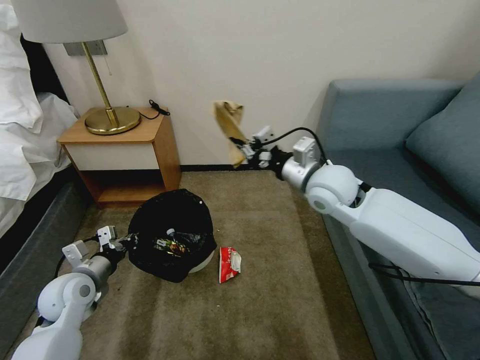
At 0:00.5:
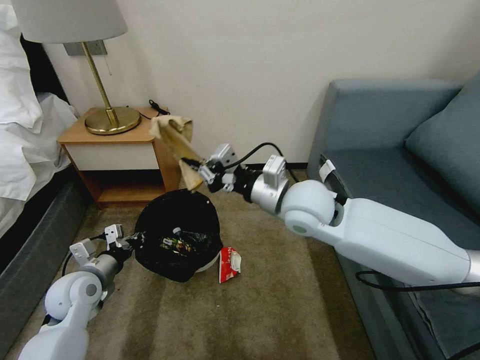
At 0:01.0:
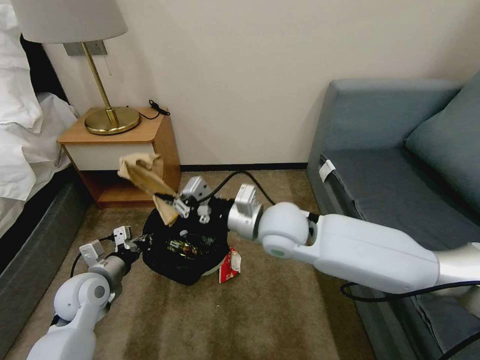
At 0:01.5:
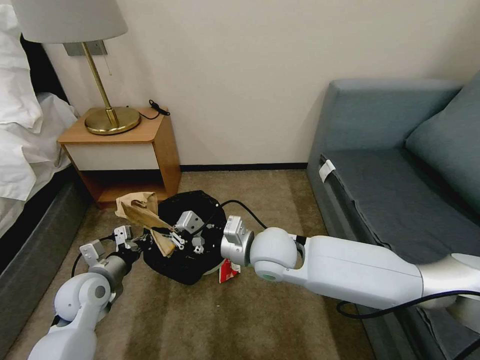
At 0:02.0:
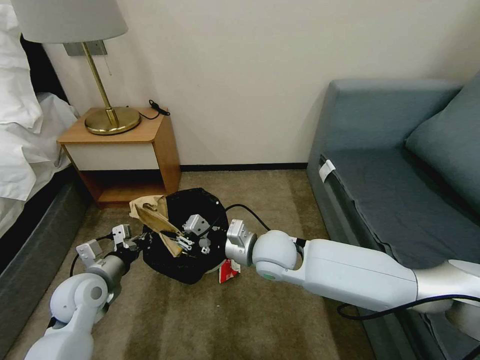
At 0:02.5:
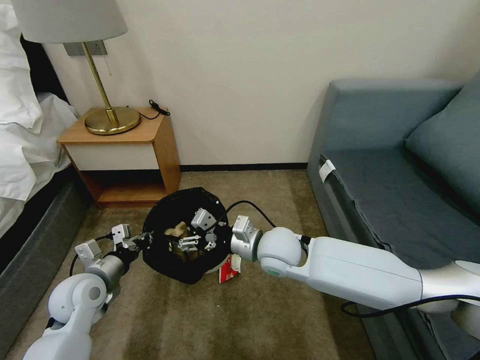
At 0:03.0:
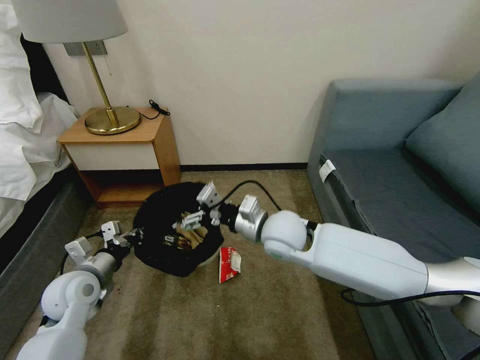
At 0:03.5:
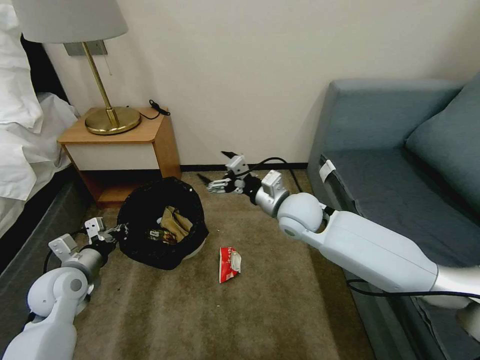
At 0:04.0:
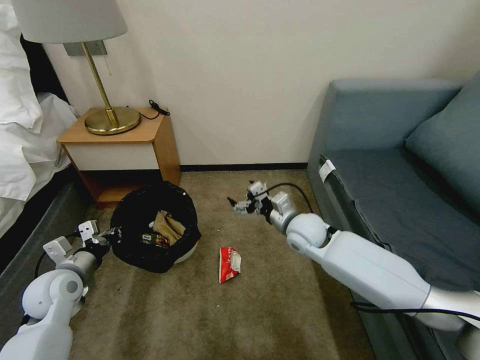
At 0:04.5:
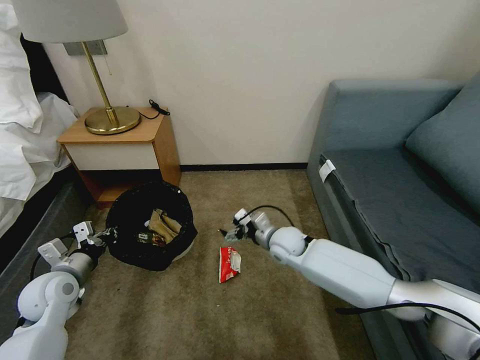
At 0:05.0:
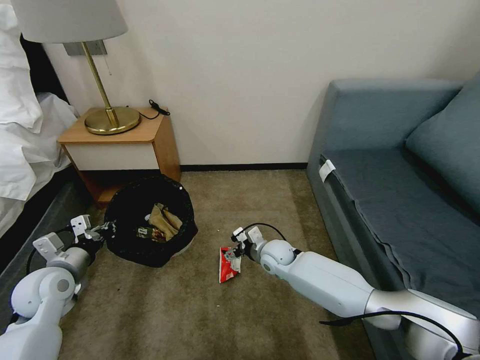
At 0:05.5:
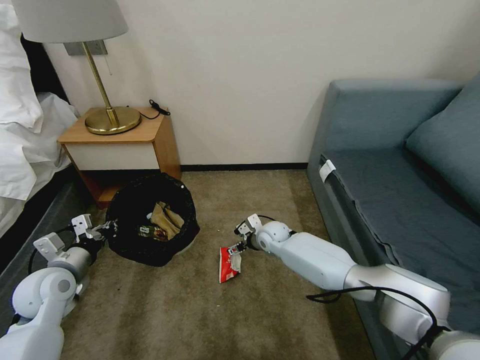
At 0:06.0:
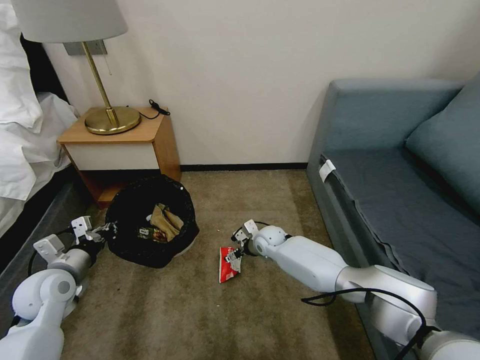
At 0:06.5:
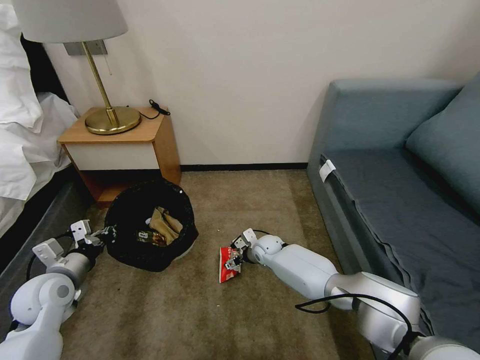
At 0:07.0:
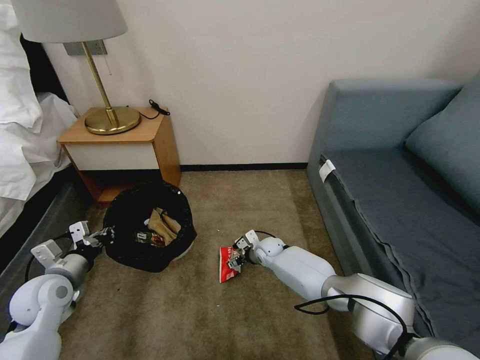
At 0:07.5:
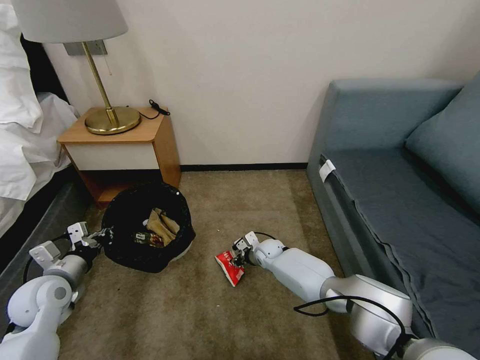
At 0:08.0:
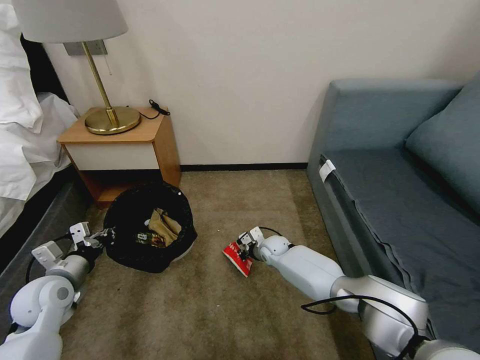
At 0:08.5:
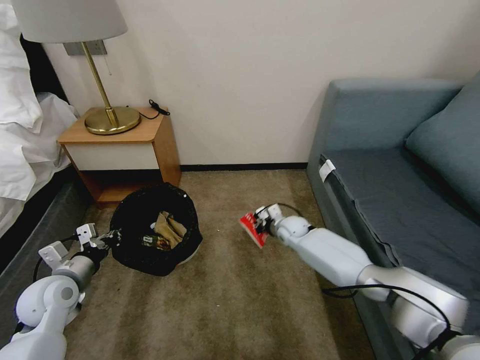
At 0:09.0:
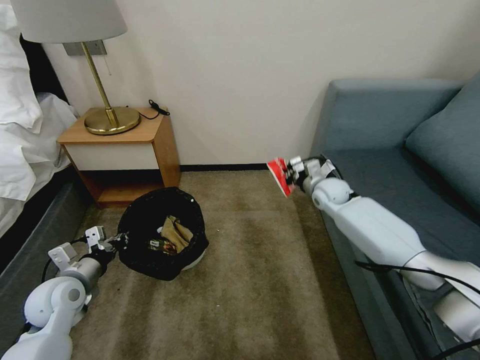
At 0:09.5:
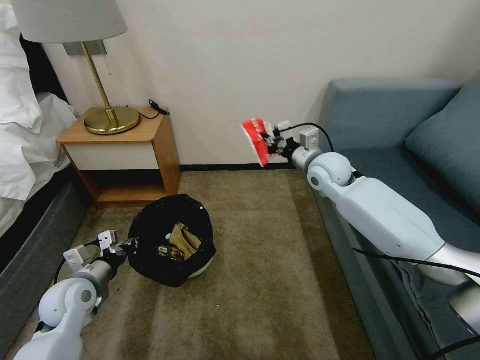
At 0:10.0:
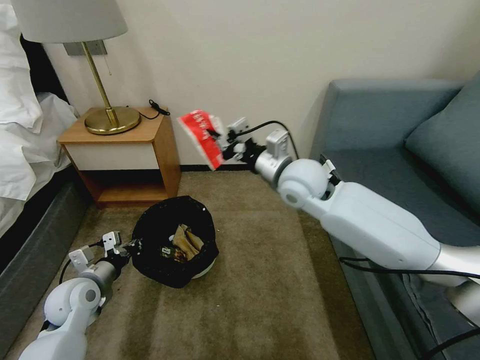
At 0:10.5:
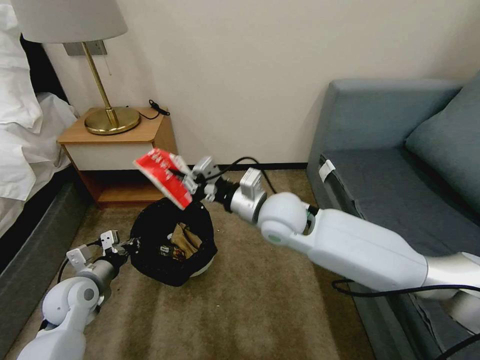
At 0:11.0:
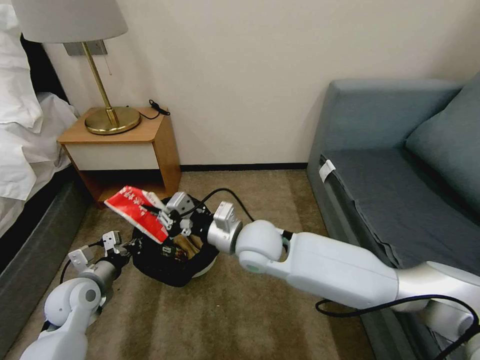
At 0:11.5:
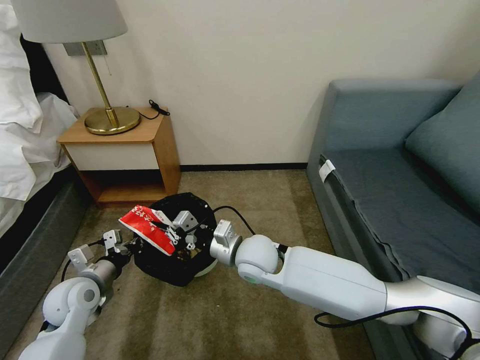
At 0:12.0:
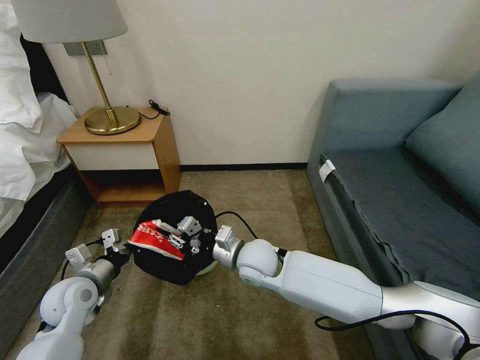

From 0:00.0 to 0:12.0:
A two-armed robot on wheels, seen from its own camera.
Task of the whole recording: Pick up the trash bin, then pick up the garbage on the floor and place it into the trash bin.
From 0:00.0 to 0:02.0: The right gripper travels to the left, downward and backward by some 20 cm.
From 0:02.0 to 0:04.0: The right gripper moves to the right and forward, about 10 cm, and opens its fingers. The left gripper travels to the left by some 5 cm.
From 0:04.0 to 0:06.0: The right gripper is displaced downward, forward and to the left by roughly 15 cm.
From 0:06.0 to 0:08.0: The right gripper closes up.
From 0:08.0 to 0:10.0: The left gripper ends up some 5 cm from where it was, while the right gripper heads upward, covering approximately 35 cm.
From 0:10.0 to 0:12.0: The right gripper is displaced downward, to the left and backward by some 20 cm.

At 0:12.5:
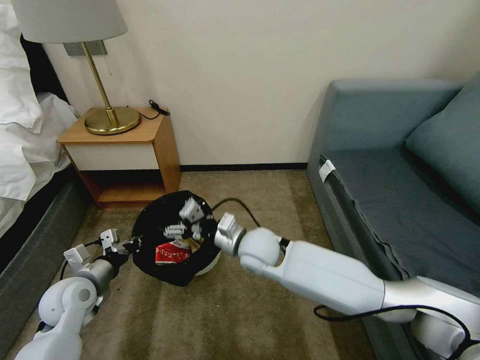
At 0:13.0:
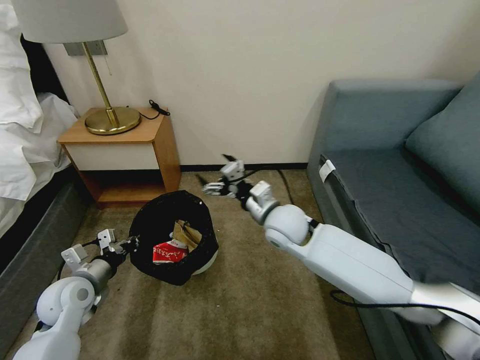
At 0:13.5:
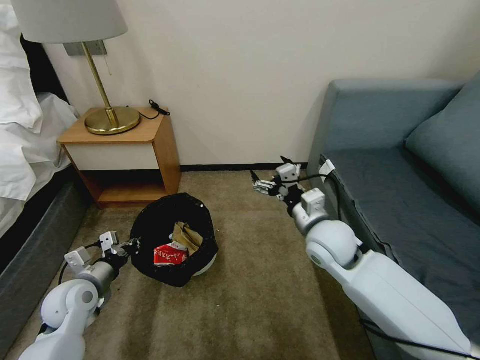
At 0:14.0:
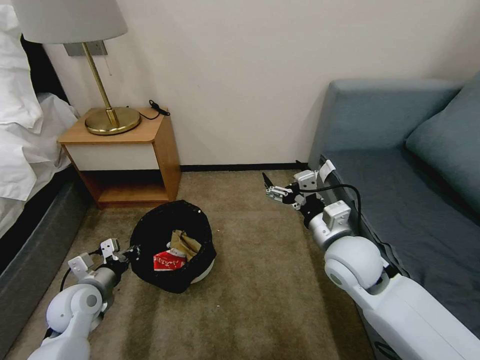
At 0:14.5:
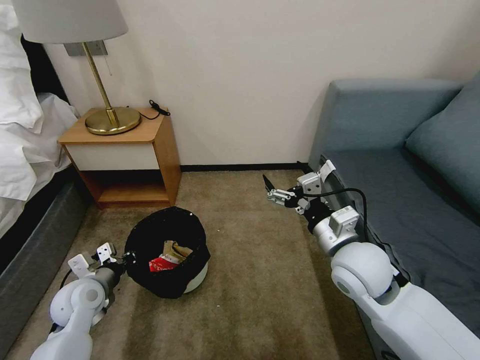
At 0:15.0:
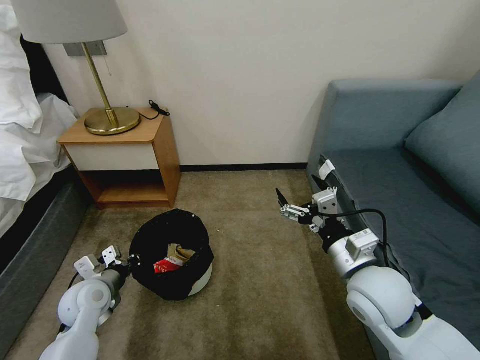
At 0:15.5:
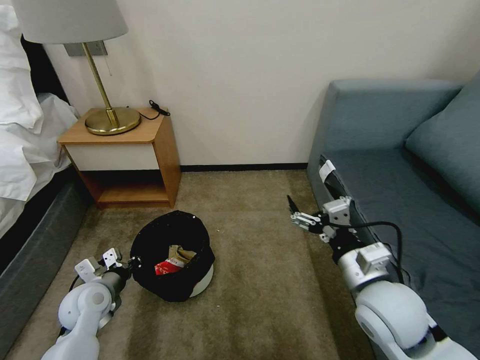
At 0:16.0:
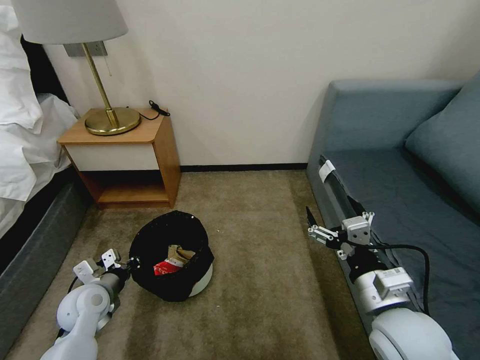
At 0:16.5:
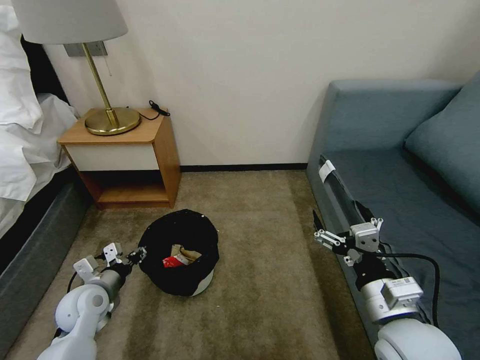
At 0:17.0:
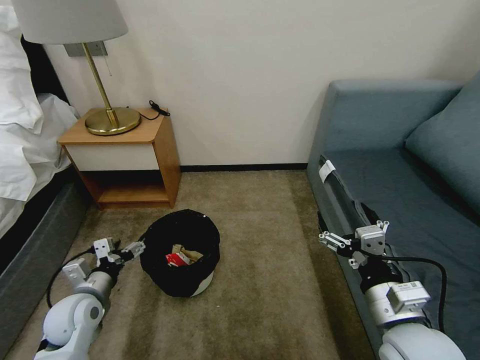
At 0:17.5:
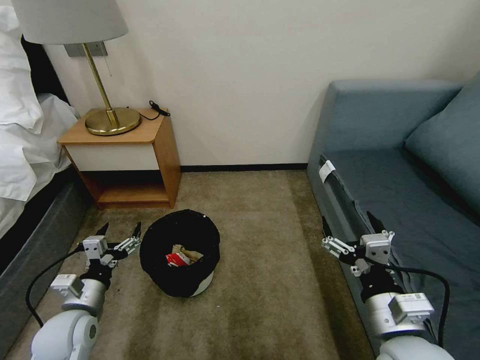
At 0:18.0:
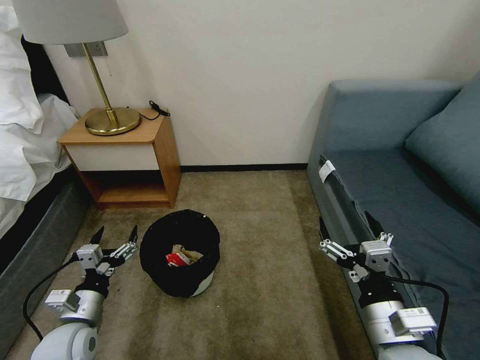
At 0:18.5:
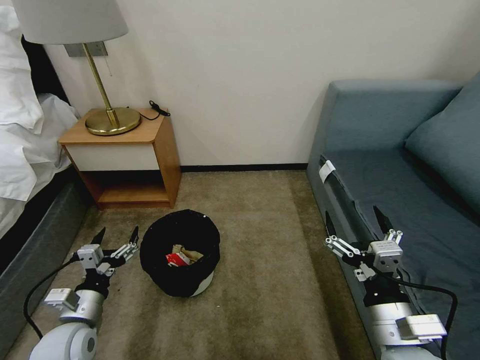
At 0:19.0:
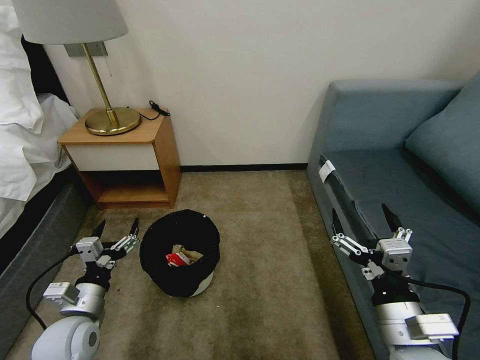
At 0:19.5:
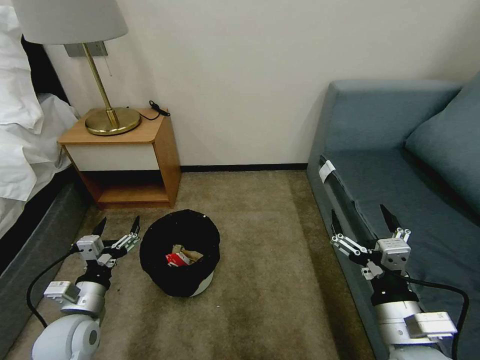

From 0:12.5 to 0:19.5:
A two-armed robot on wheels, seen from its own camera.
Task of the whole recording: Pick up the trash bin, then pick up the garbage on the floor and place it into the trash bin.
From 0:12.5 to 0:14.5: The right gripper is displaced to the right, upward and backward by about 20 cm.
From 0:14.5 to 0:16.0: The right gripper heads backward, covering about 10 cm.
From 0:16.0 to 0:17.5: The left gripper is displaced backward by roughly 5 cm, and opens its fingers.
From 0:17.5 to 0:19.5: The grippers move only a little.

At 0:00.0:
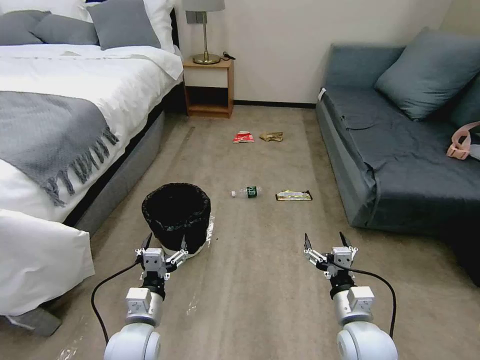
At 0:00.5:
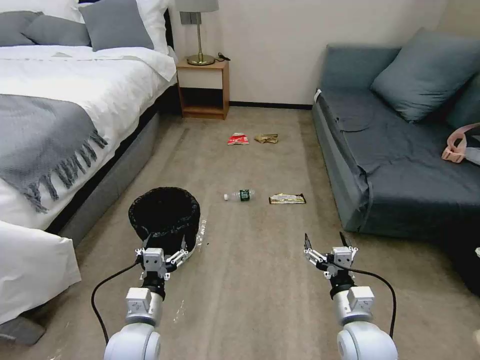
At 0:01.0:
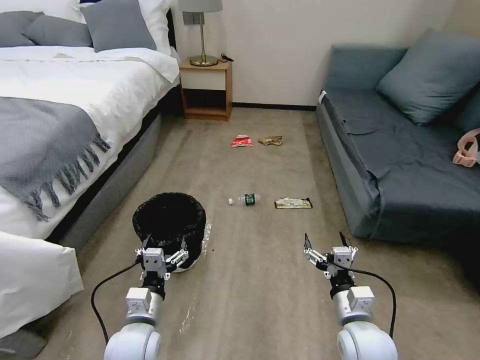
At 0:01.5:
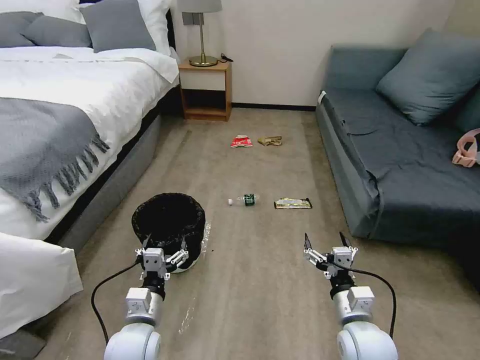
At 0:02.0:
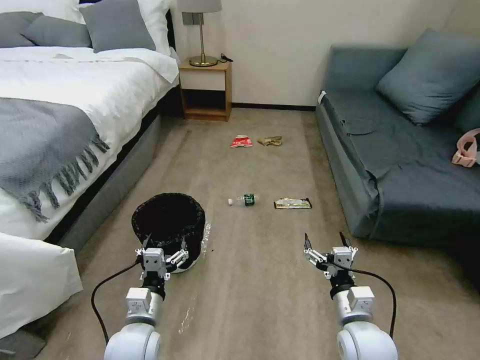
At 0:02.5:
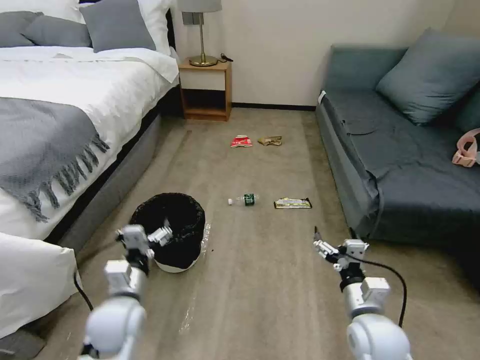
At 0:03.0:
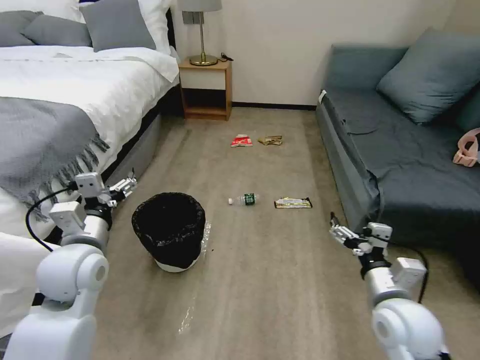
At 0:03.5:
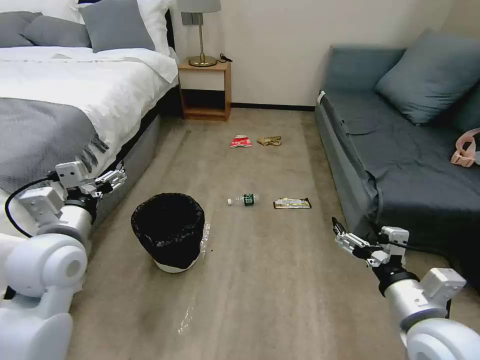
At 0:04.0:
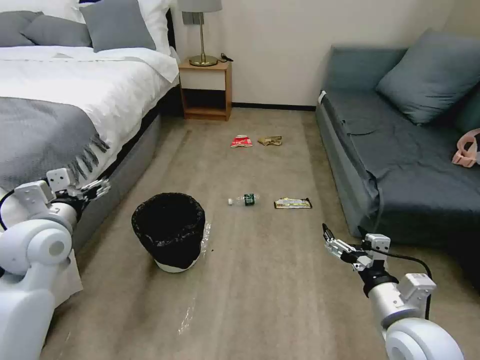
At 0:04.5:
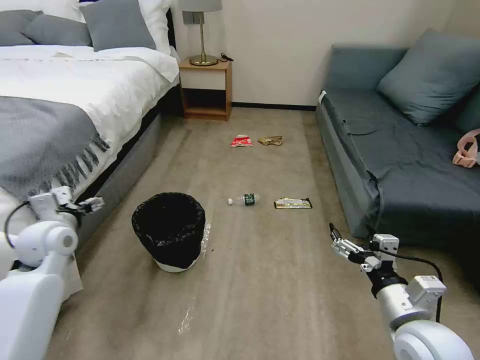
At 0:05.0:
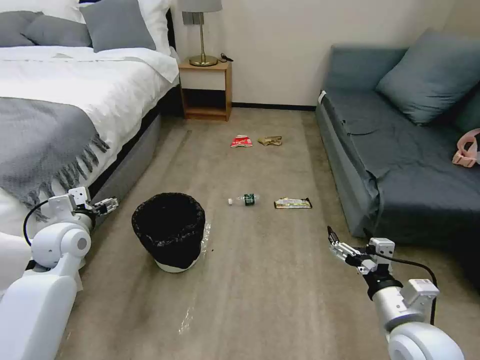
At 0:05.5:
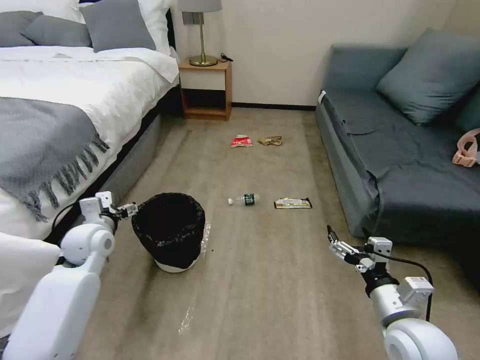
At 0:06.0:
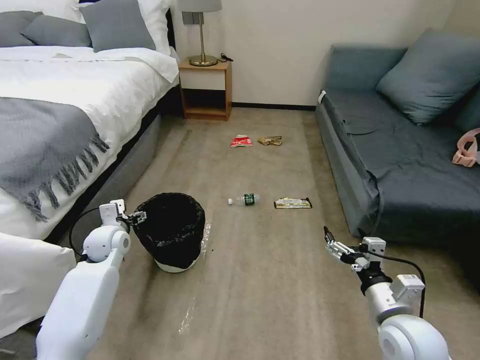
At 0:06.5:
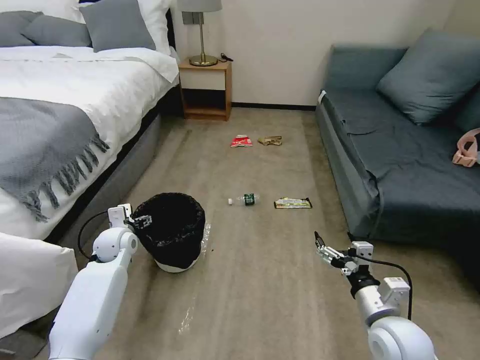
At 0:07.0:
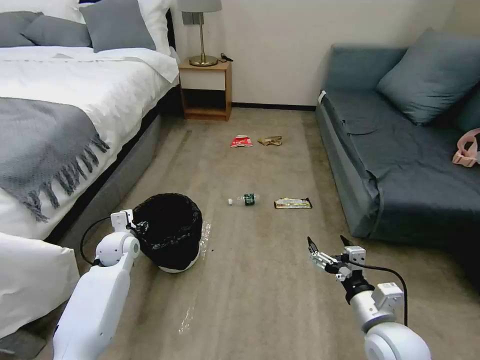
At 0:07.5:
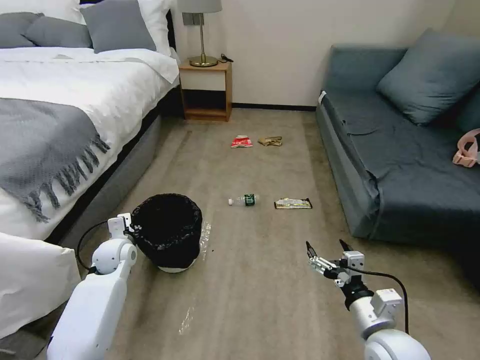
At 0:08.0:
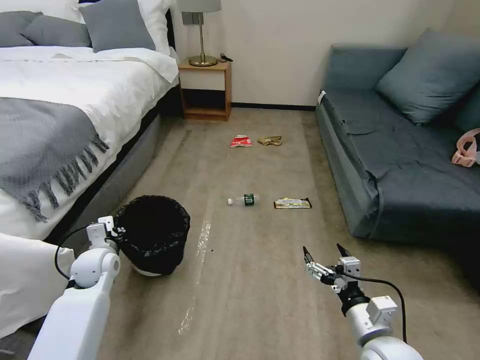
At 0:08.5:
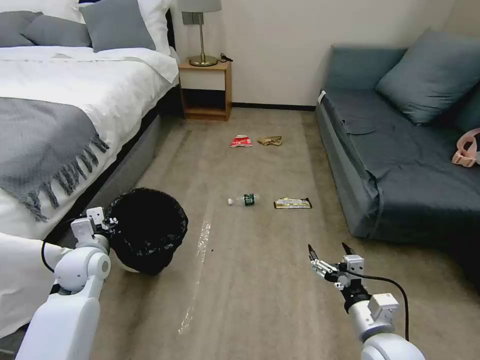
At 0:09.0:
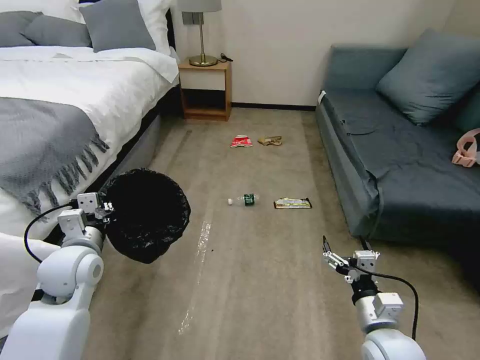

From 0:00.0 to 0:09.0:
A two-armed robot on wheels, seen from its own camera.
Task of the whole recording: Pick up the trash bin, then pick up the garbage on the floor and place it into the trash bin.
From 0:02.0 to 0:04.5: The left gripper heads to the left, forward and upward, covering about 30 cm. The right gripper moves upward and to the right, roughly 10 cm.
From 0:04.5 to 0:07.0: The right gripper travels downward by about 5 cm, while the left gripper is displaced downward, to the right and forward by some 15 cm, and closes its fingers.
From 0:07.0 to 0:09.0: The left gripper shifts roughly 15 cm upward and backward, and closes.
